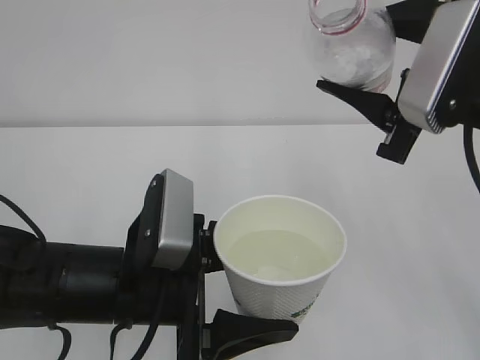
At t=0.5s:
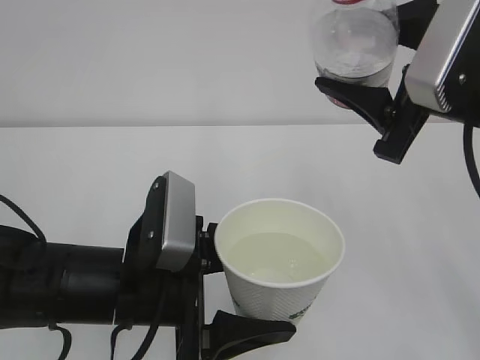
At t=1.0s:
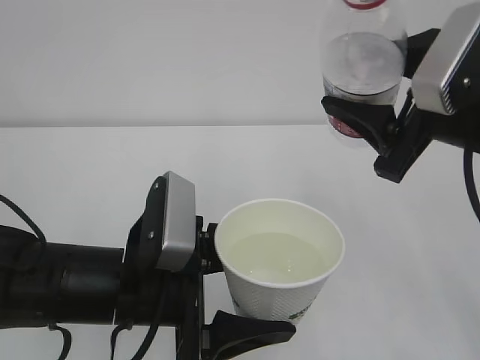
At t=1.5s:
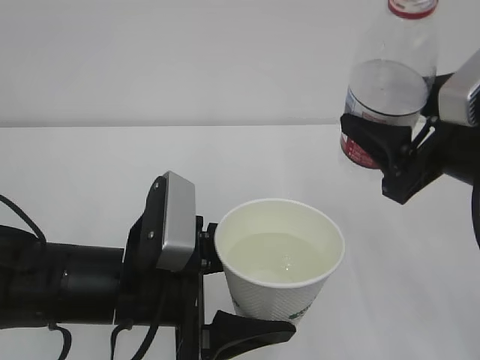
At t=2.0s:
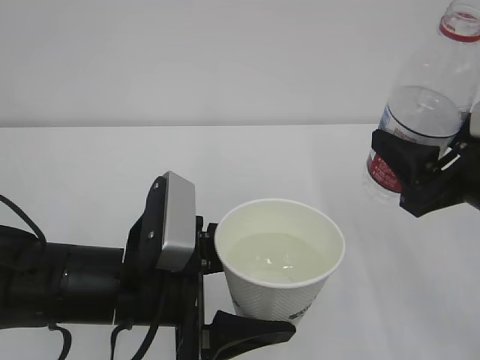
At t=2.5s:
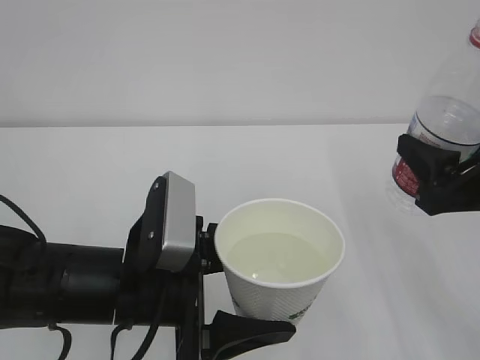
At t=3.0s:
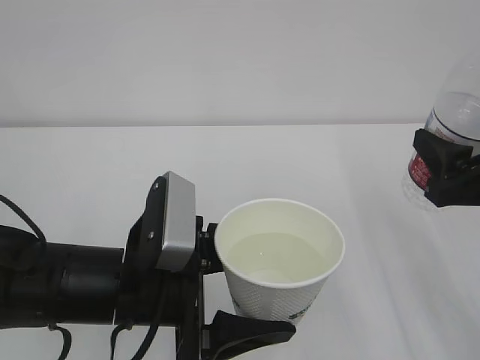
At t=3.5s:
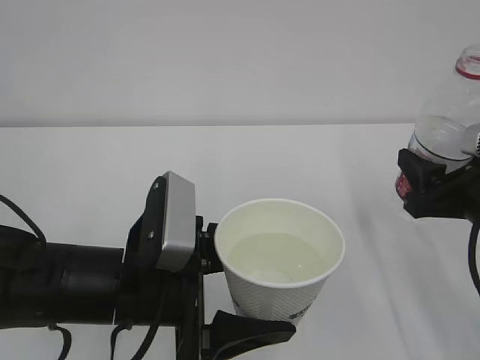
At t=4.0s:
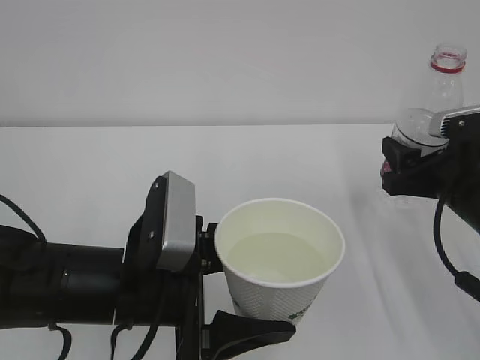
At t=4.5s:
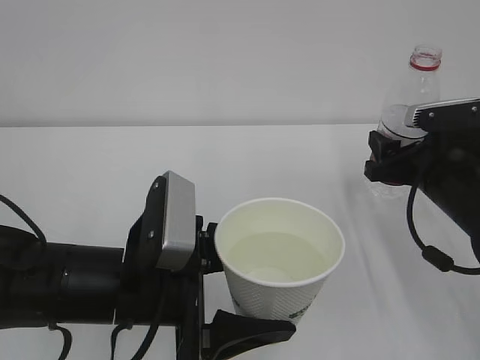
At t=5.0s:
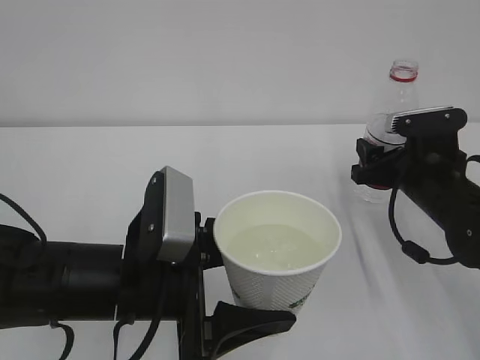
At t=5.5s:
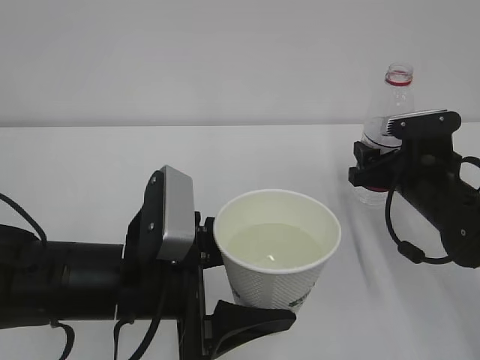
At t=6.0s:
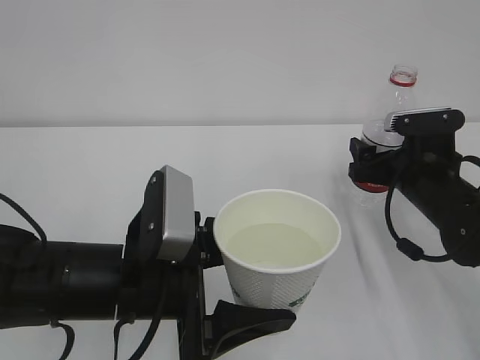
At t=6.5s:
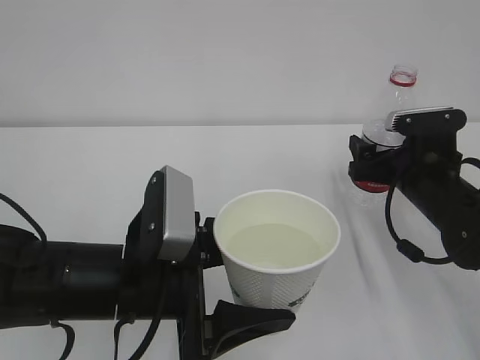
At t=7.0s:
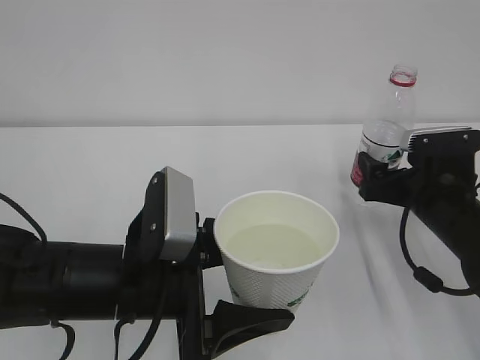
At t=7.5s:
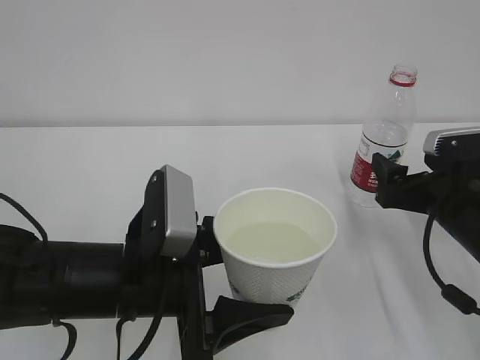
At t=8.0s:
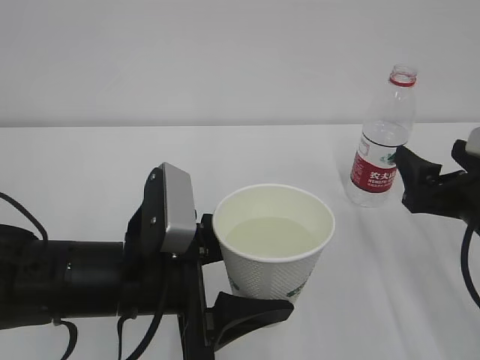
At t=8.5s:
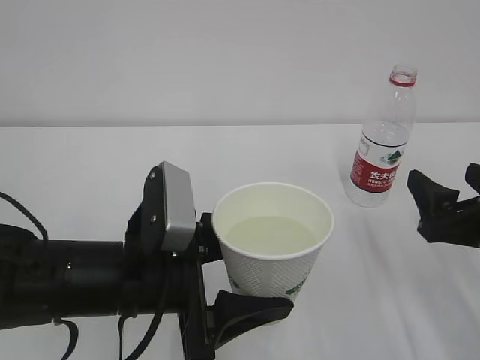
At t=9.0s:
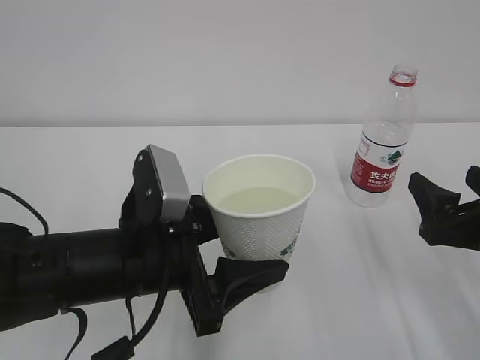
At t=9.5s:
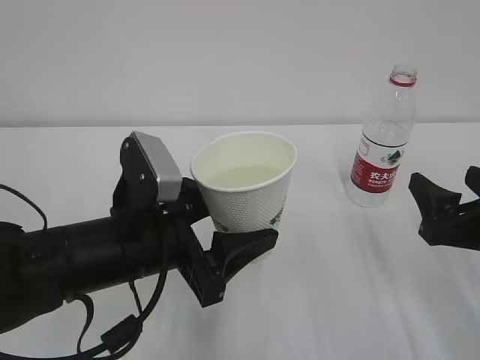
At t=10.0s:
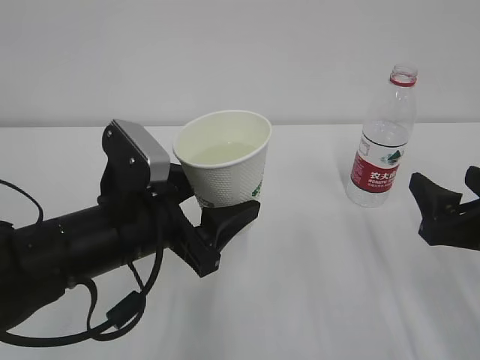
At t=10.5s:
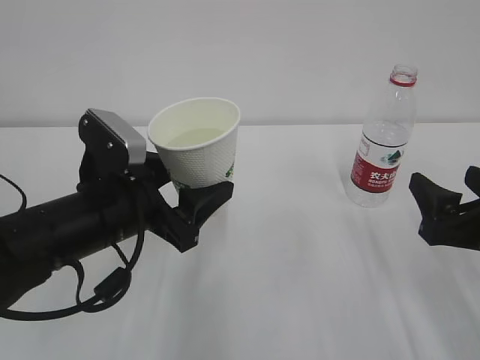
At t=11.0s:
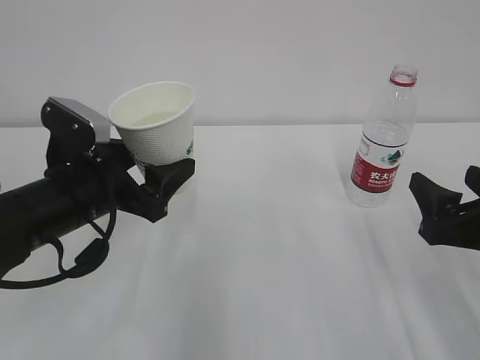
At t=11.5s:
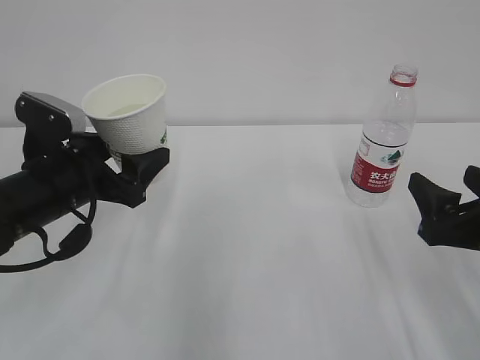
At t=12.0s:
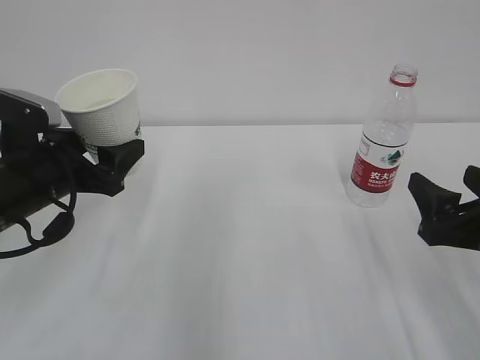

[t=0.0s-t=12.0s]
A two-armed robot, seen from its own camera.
t=0.0s to t=2.0s: The right gripper heads downward, covering about 5 cm.
t=2.0s to t=4.0s: The right gripper travels downward and forward by approximately 10 cm.
t=4.0s to t=6.0s: The right gripper goes approximately 5 cm forward, and opens its fingers.
t=6.0s to t=8.0s: The right gripper goes some 10 cm backward.
t=10.0s to t=12.0s: The left gripper shifts some 15 cm to the left and forward.

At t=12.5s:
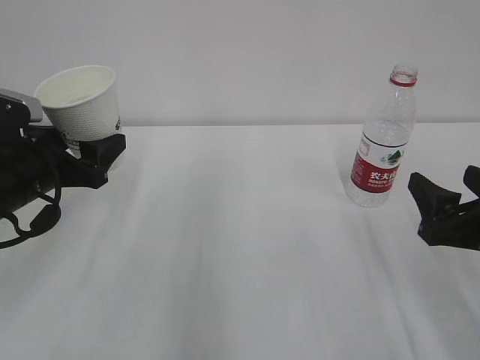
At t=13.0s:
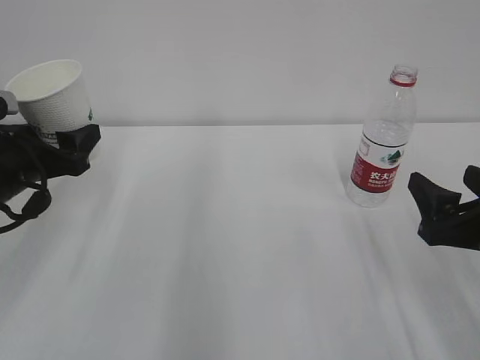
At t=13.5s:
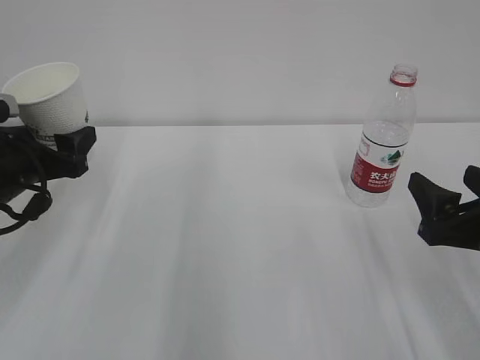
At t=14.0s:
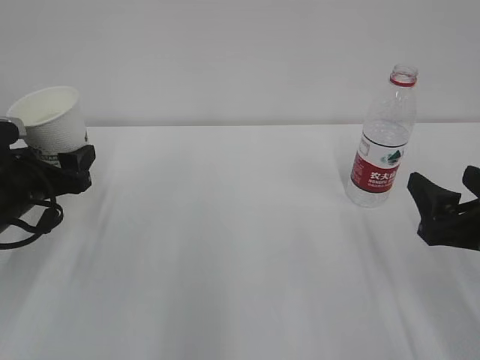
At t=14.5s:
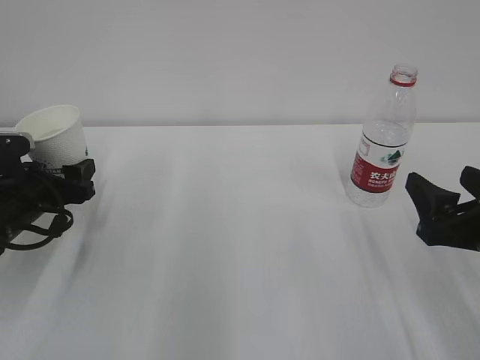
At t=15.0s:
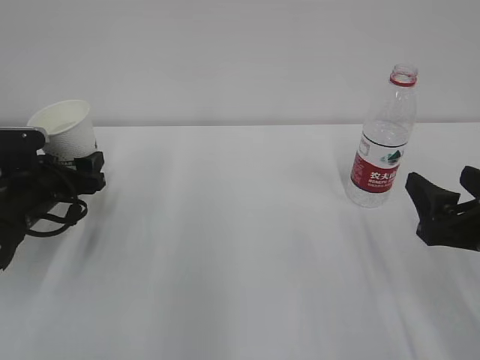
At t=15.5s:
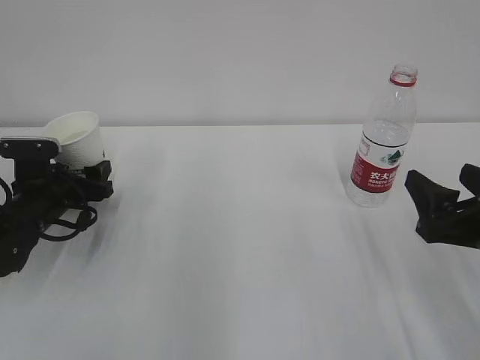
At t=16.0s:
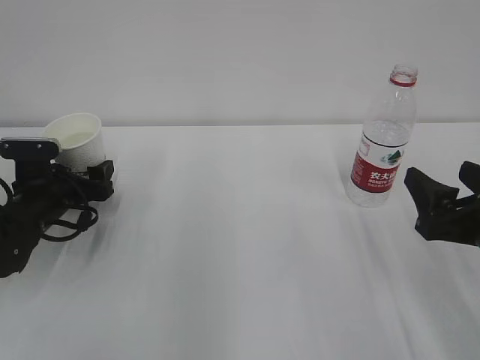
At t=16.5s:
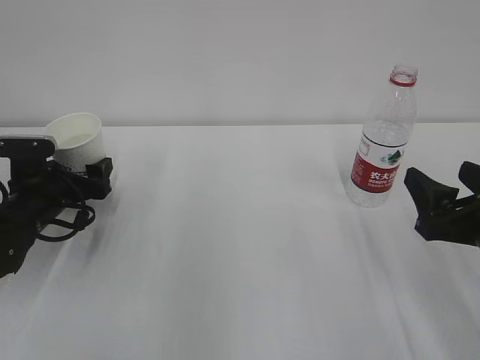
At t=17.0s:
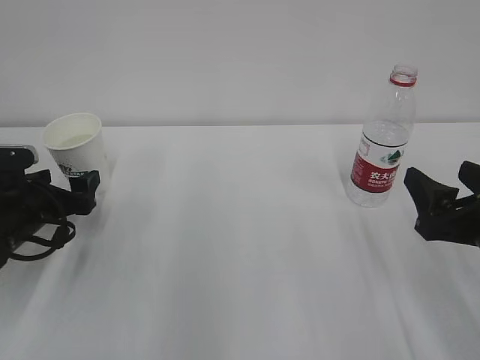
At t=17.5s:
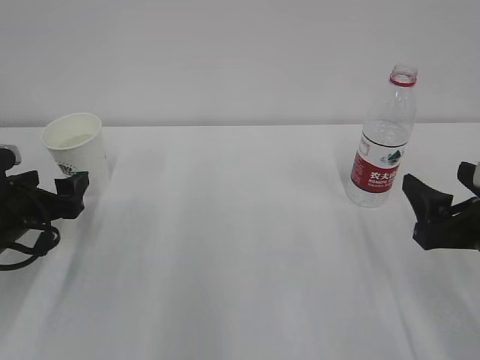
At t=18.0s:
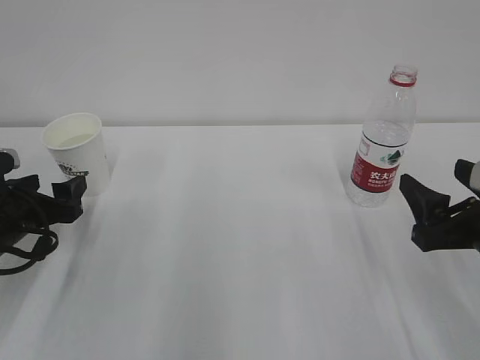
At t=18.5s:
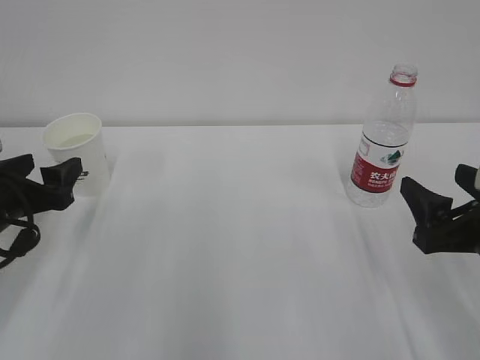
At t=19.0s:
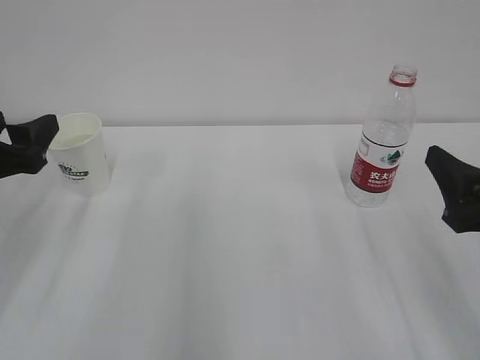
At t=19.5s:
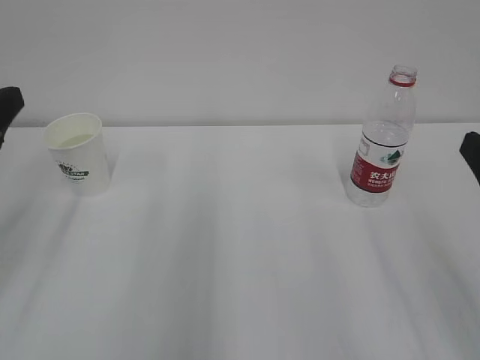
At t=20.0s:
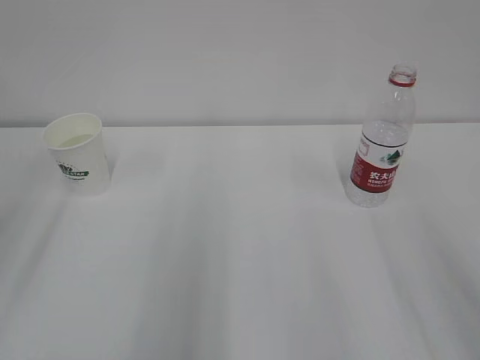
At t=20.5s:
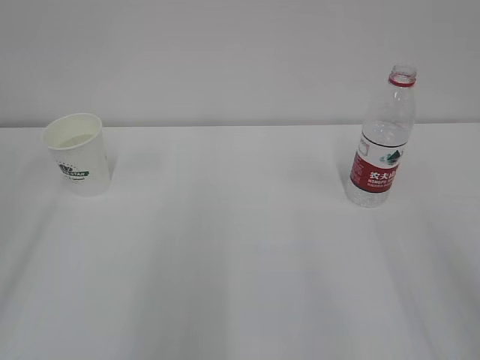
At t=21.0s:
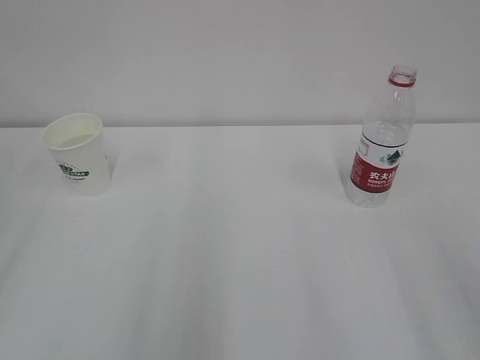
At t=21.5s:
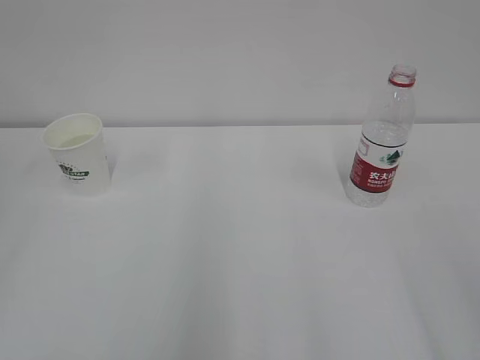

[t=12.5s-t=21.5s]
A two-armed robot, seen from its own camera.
t=12.5s to t=14.5s: The left gripper shifts roughly 5 cm downward.
t=14.5s to t=17.0s: The left gripper opens its fingers.
t=17.0s to t=19.5s: The left gripper goes approximately 20 cm upward and backward, and closes its fingers, while the right gripper moves upward and backward, approximately 10 cm.

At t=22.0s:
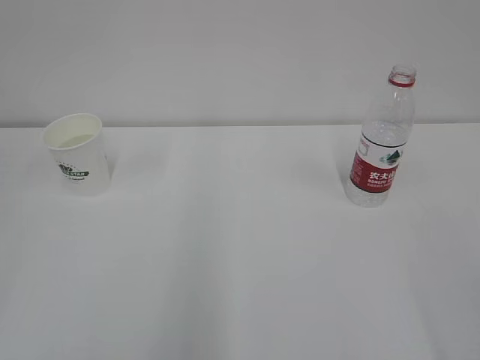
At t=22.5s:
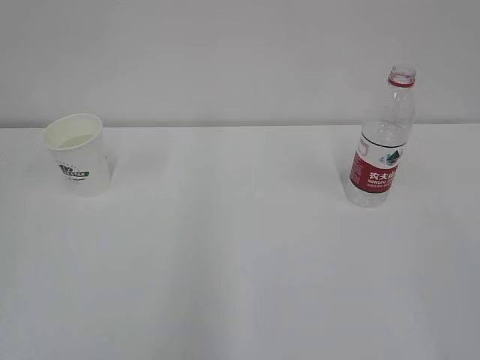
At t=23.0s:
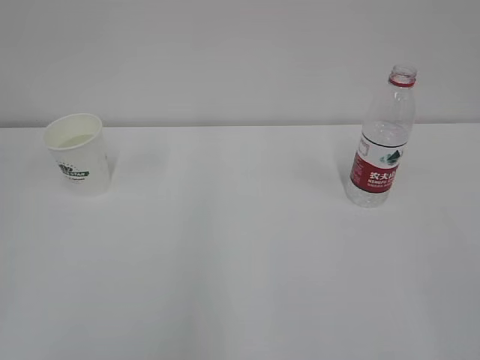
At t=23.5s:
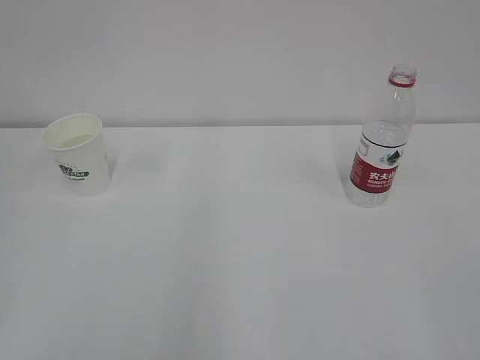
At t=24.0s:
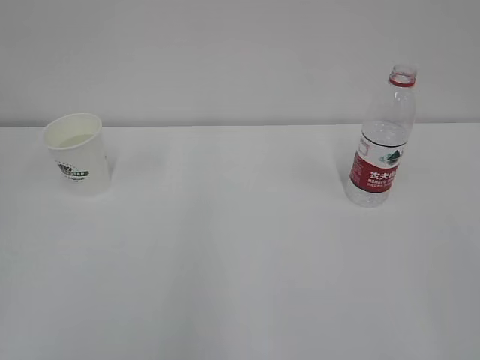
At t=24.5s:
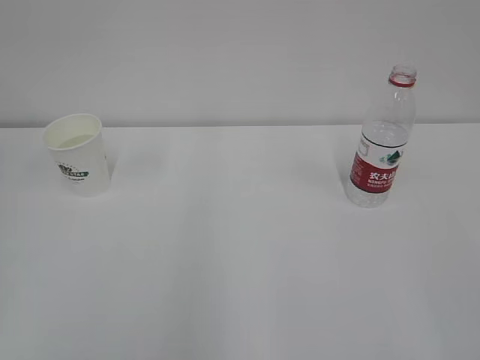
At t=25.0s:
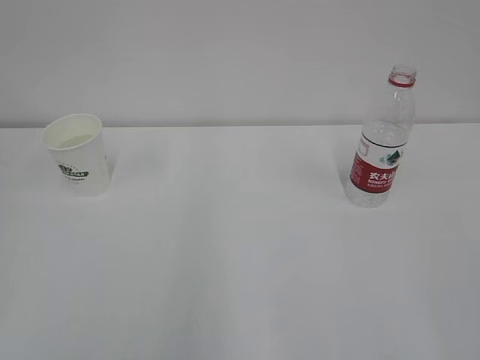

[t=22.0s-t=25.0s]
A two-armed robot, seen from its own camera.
t=23.5s to t=25.0s: The two grippers keep their place.
